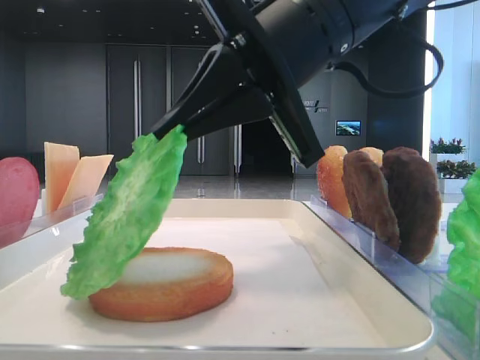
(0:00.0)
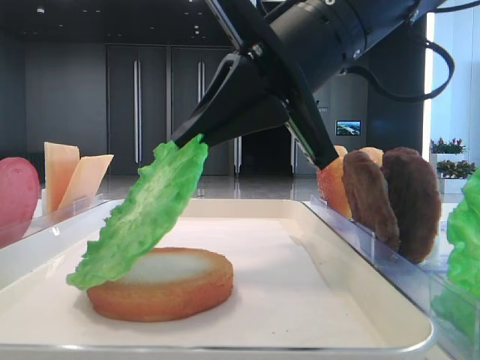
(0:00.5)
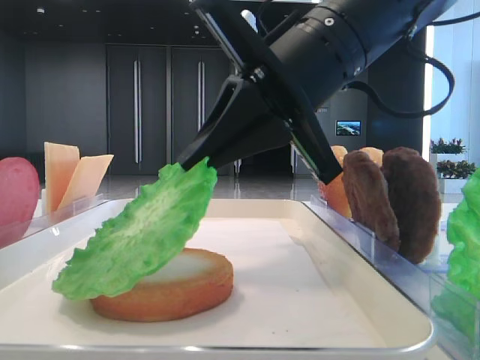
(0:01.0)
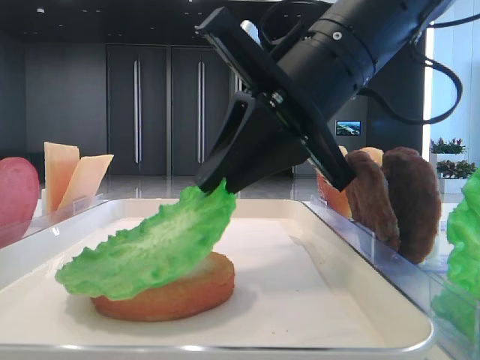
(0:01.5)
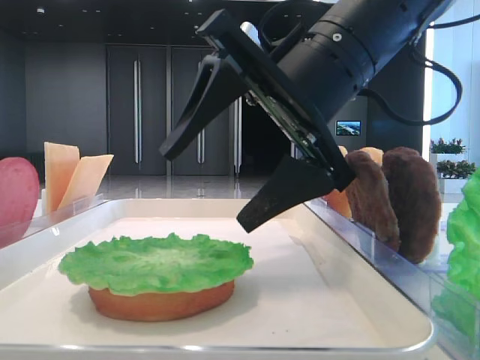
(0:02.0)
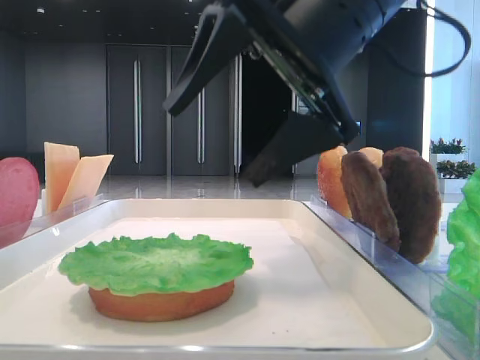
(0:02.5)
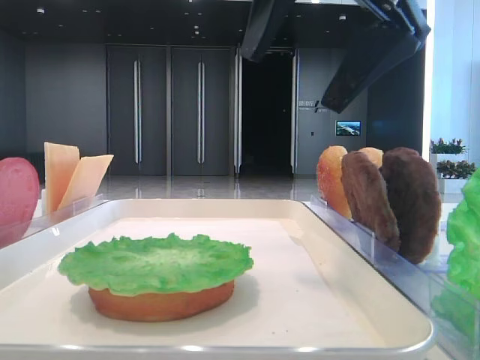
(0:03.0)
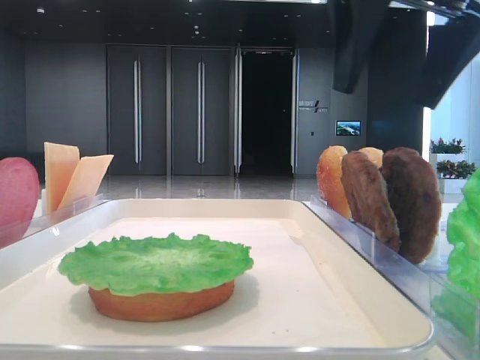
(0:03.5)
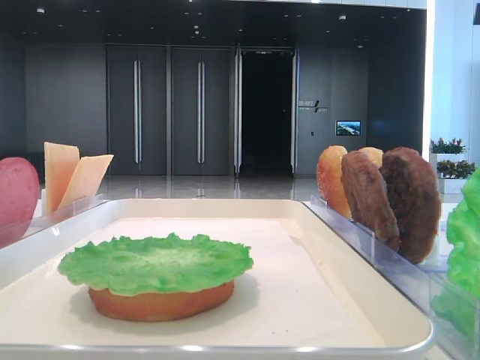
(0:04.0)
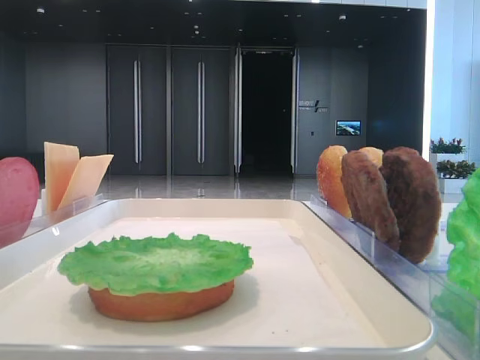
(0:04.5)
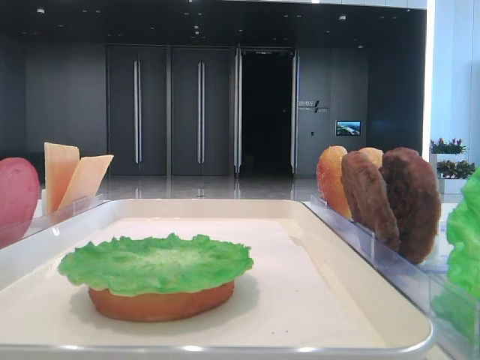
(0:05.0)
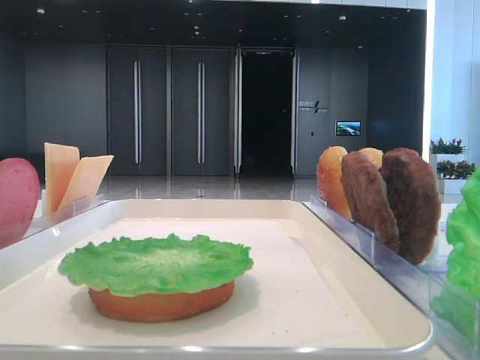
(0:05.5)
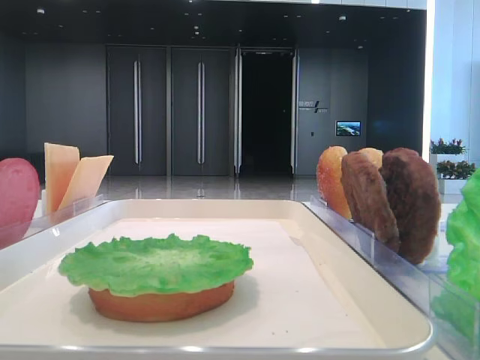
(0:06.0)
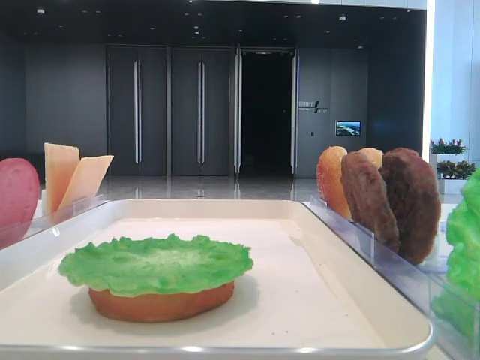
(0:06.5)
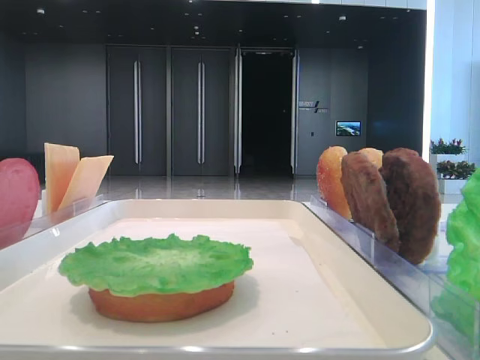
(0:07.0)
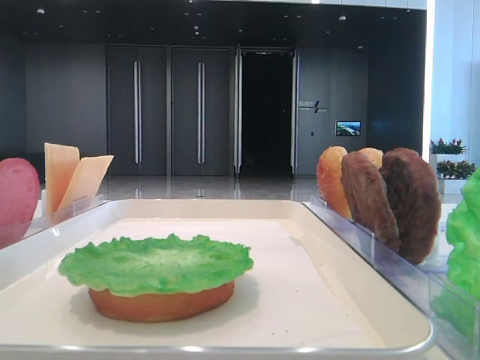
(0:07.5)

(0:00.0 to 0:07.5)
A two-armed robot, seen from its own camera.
Step, 0:00.0 - 0:02.0: Place the lettuce leaf on the bottom bread with the right hand.
0:00.0 - 0:02.0: The right gripper opens.
0:02.0 - 0:04.0: The right gripper shifts roughly 25 cm to the right and upward.

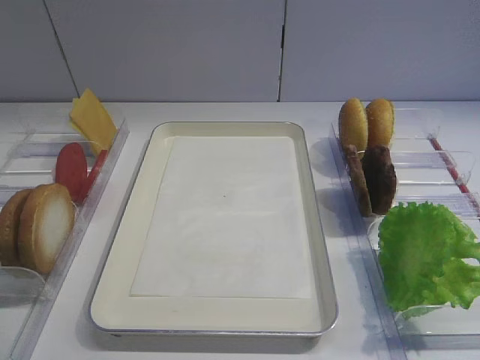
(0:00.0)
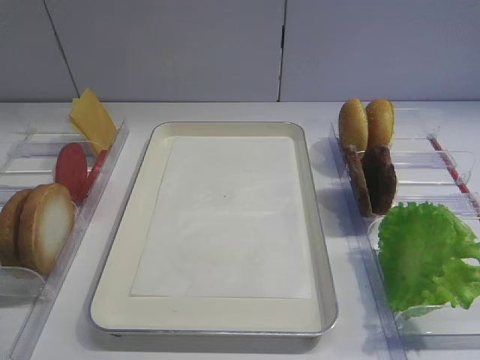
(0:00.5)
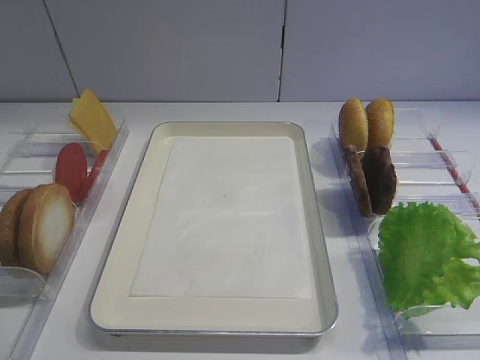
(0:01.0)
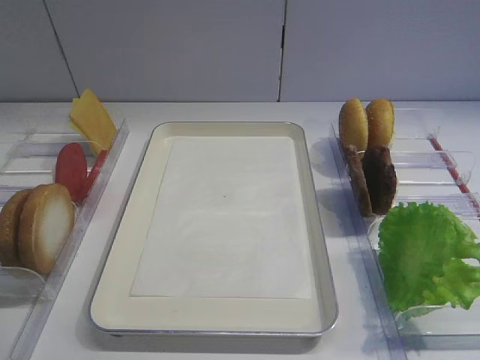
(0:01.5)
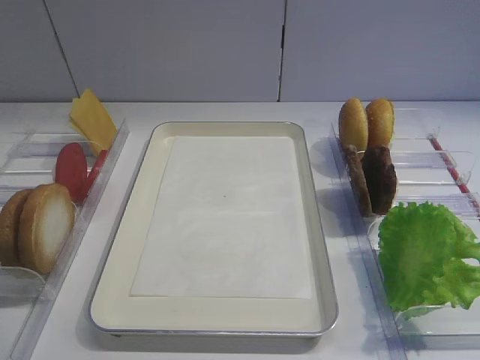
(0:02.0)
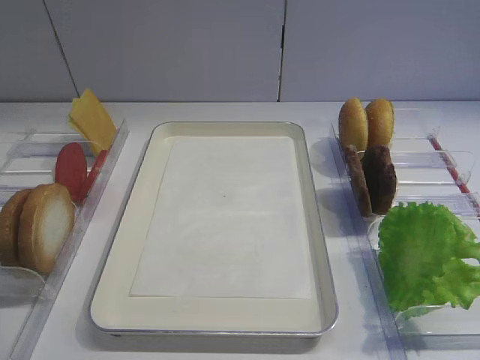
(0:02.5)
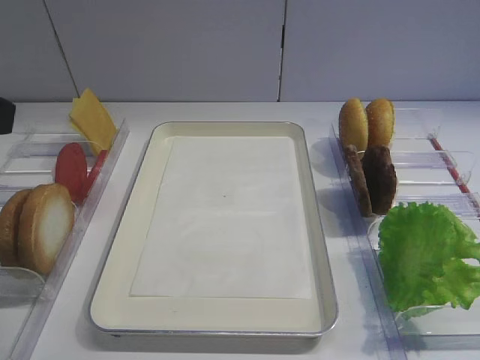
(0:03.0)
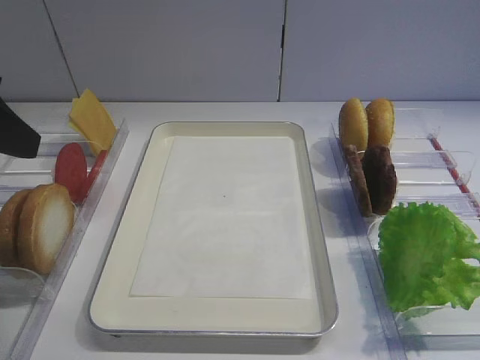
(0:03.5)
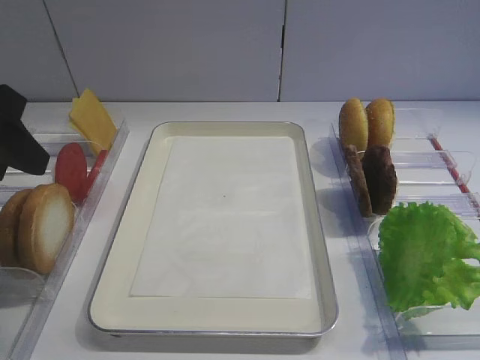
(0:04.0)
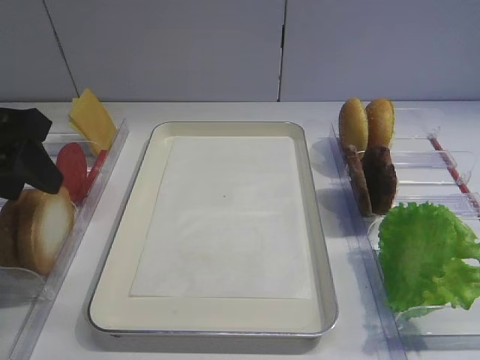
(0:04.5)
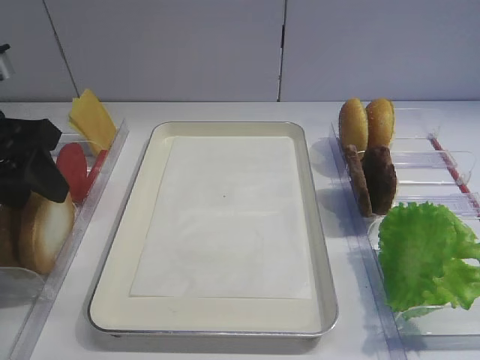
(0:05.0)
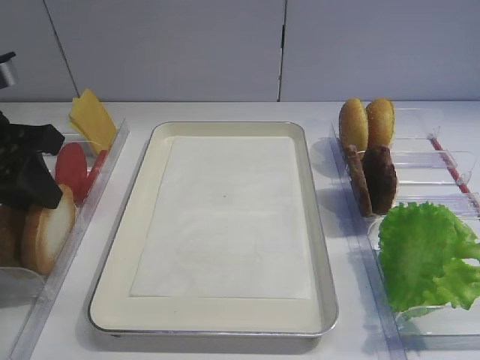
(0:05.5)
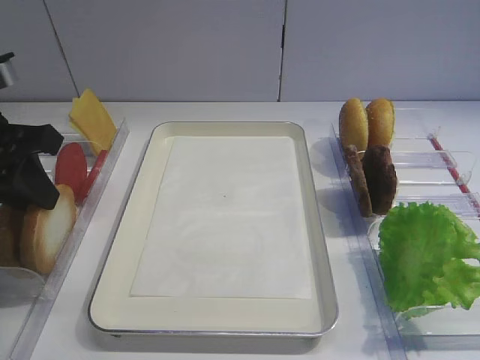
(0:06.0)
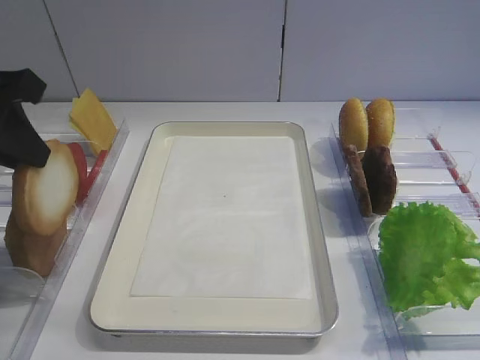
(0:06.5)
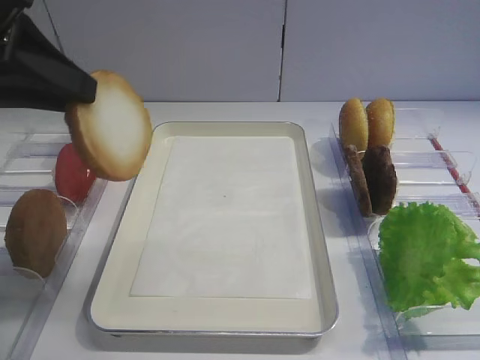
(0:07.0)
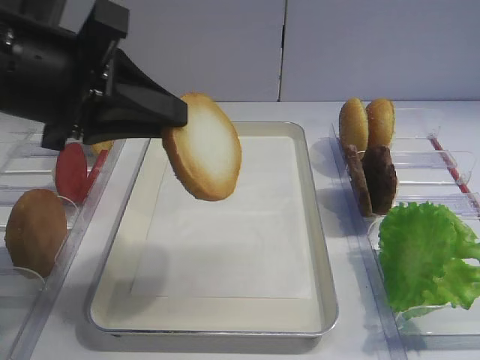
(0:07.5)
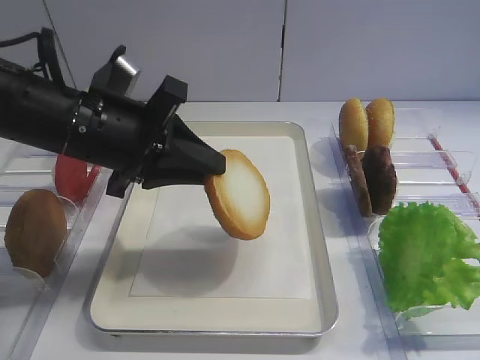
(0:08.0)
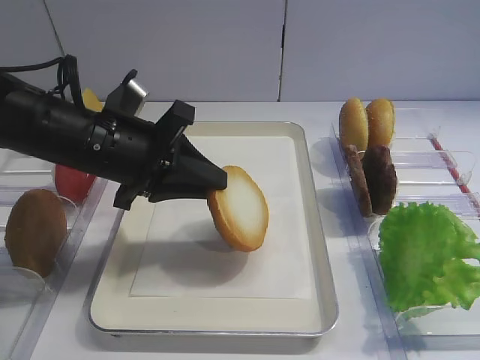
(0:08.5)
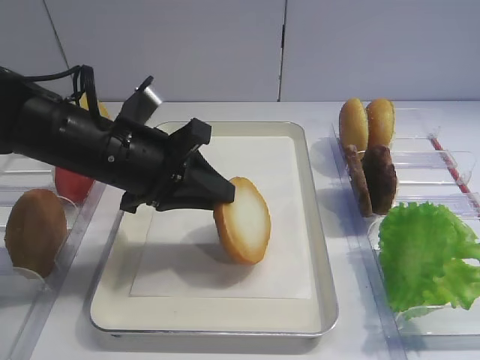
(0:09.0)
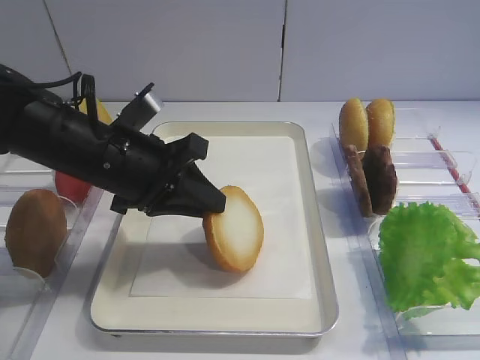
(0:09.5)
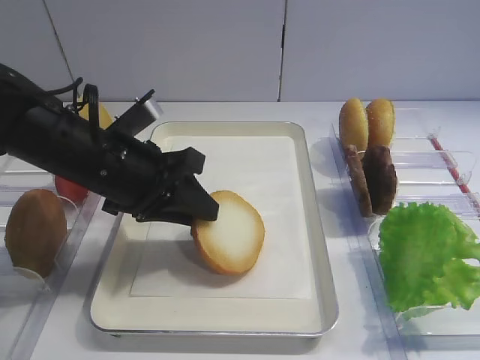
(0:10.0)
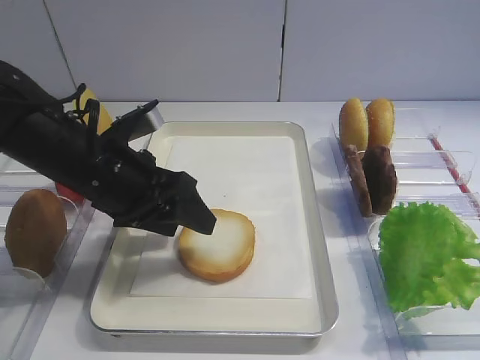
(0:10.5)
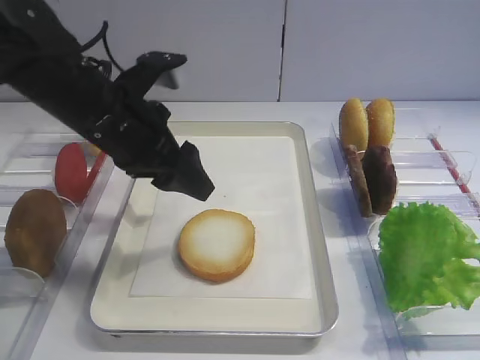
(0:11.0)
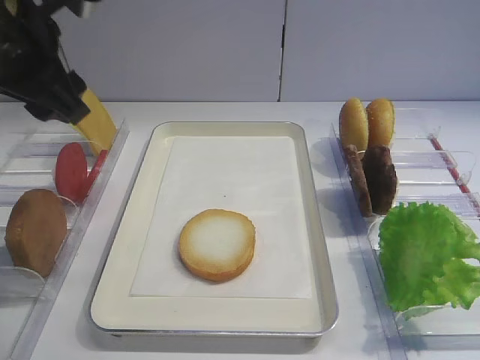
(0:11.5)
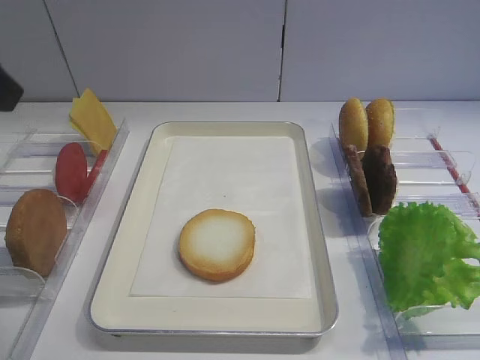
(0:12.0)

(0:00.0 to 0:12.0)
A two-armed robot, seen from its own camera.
Step, 0:00.0 - 0:06.0: Pick up the bread slice with the left gripper.
Step, 0:06.5 - 0:10.5: Place the bread slice on the tray with the left gripper.
0:02.0 - 0:04.0: The left gripper shifts roughly 25 cm forward, and closes.
0:04.0 - 0:06.0: The left gripper shifts by some 5 cm, and closes up.
0:06.0 - 0:08.0: The left gripper heads to the right, covering roughly 10 cm, and goes upward and returns, about 10 cm each way.
0:08.0 - 0:10.0: The left gripper opens.
0:10.0 - 0:12.0: The left gripper shifts approximately 25 cm upward, backward and to the left, and opens up.

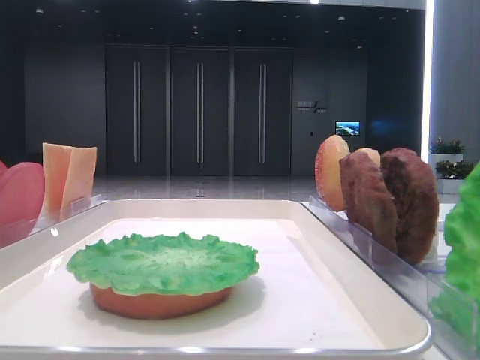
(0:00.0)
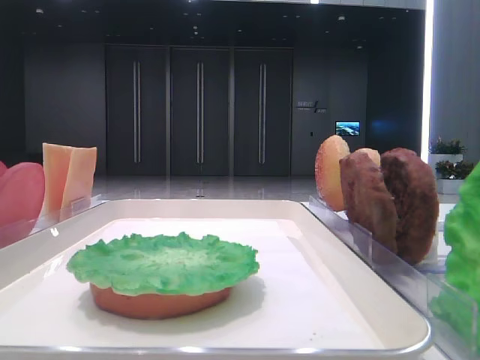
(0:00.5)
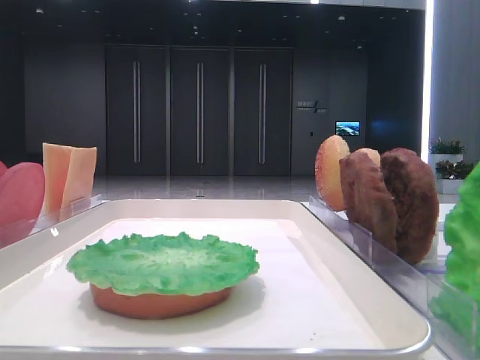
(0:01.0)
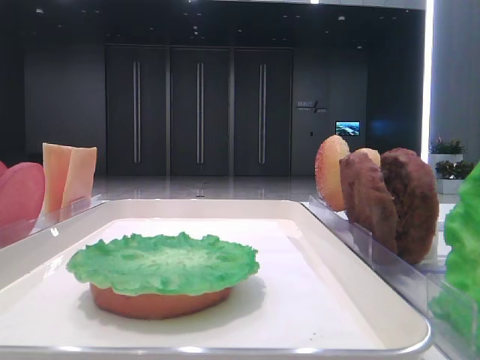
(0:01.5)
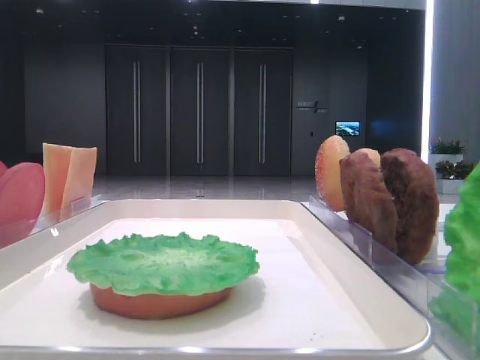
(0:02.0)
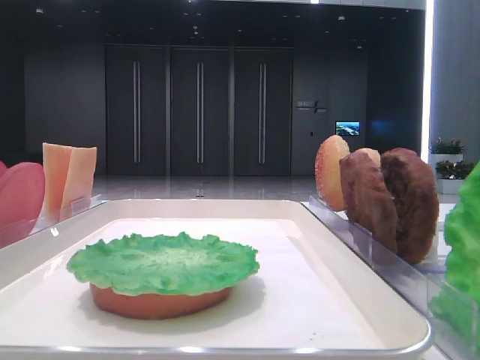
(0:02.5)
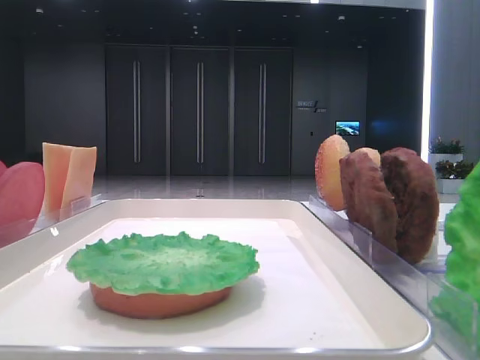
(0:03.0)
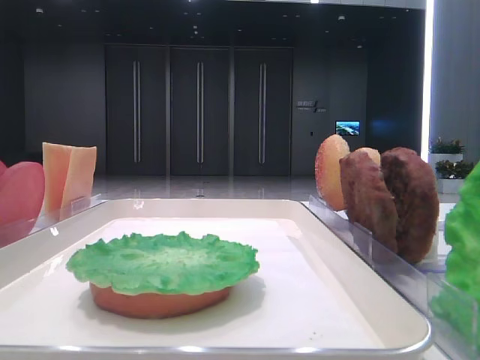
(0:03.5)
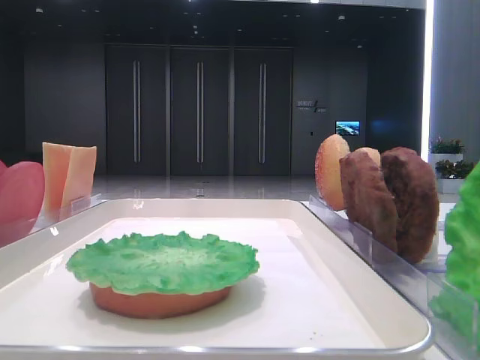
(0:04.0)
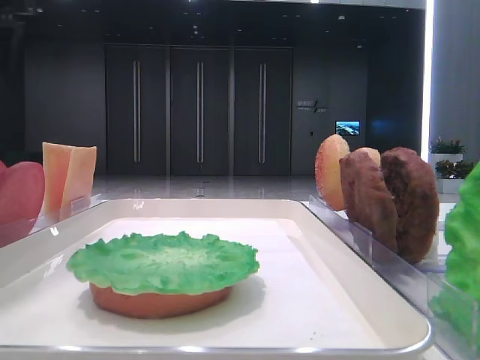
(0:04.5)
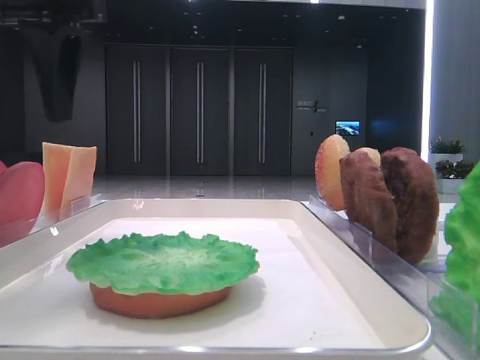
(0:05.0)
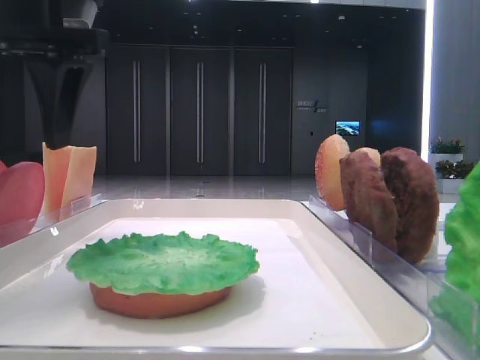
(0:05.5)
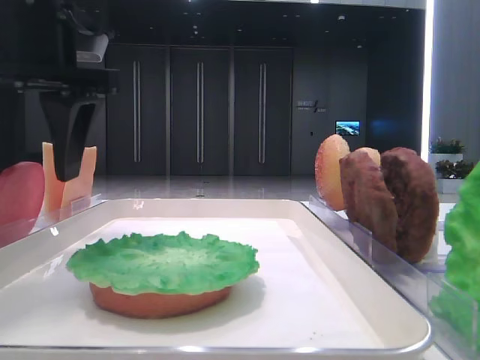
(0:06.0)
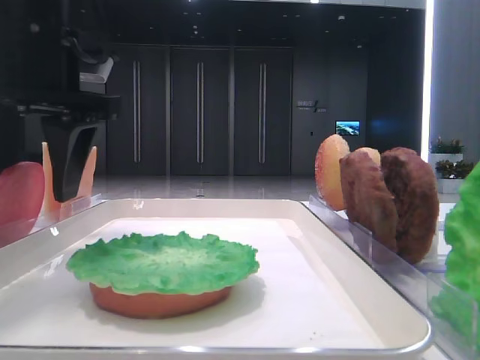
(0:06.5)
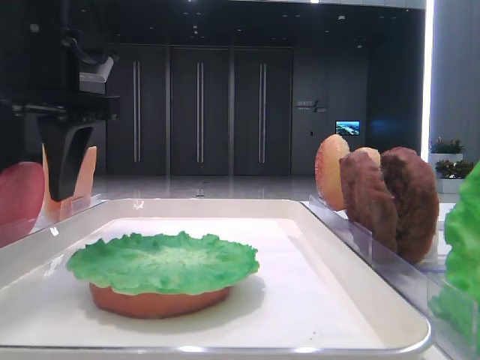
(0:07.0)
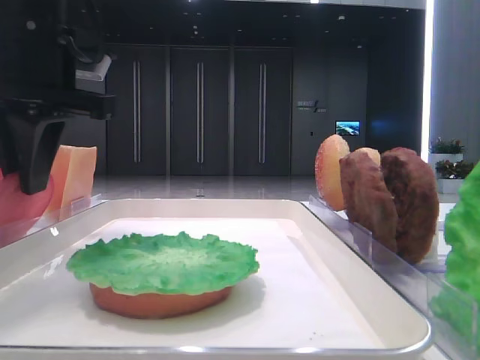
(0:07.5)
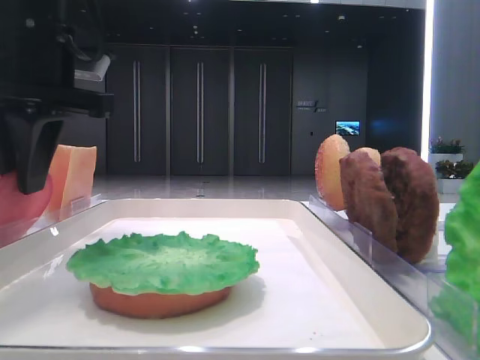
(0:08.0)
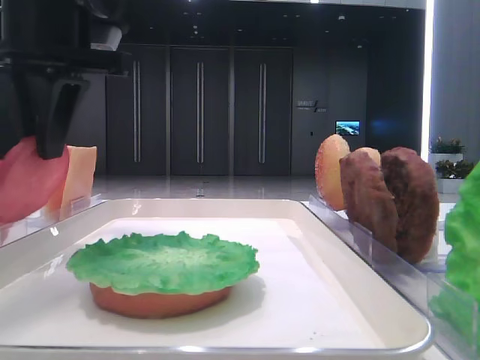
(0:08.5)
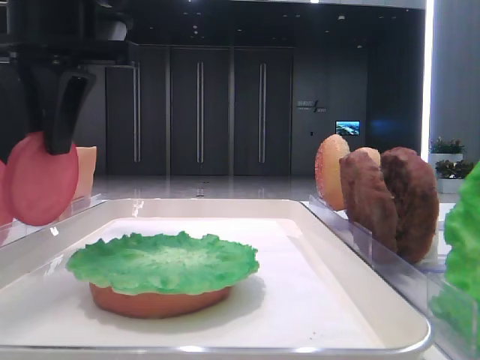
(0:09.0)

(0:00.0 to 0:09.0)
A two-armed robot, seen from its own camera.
Step, 0:00.0 - 0:07.5: Pick up the tomato slice with the left hand.
0:02.0 - 0:04.5: The left gripper travels forward by about 30 cm.
0:04.5 - 0:07.0: The left gripper moves to the right and downward, approximately 10 cm.
0:07.0 - 0:09.0: The left gripper closes.
